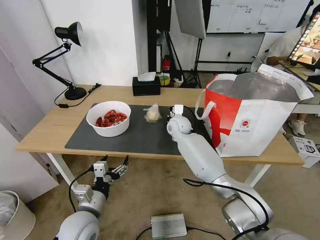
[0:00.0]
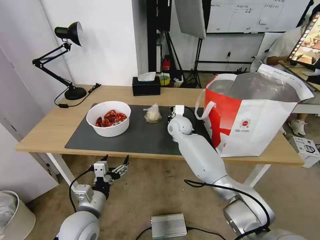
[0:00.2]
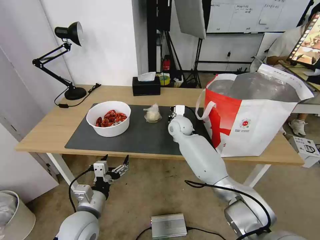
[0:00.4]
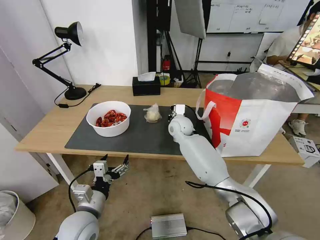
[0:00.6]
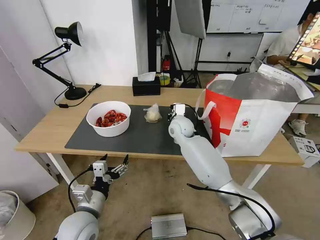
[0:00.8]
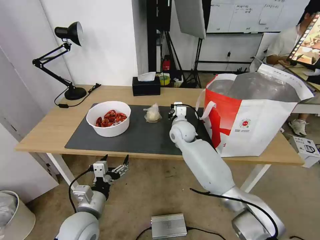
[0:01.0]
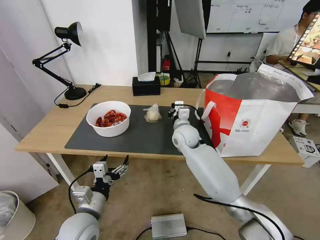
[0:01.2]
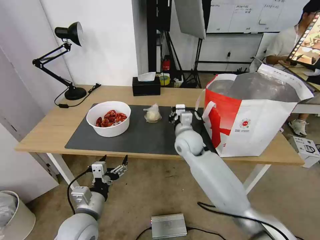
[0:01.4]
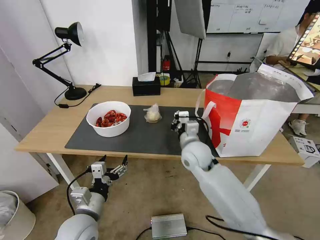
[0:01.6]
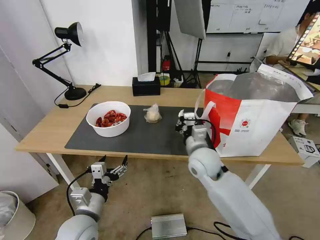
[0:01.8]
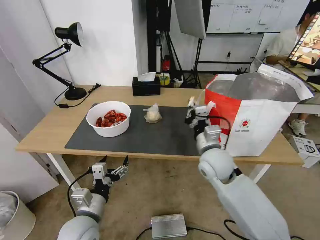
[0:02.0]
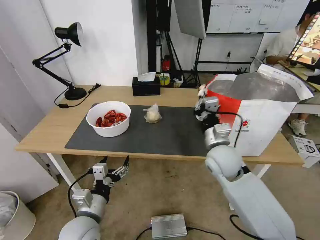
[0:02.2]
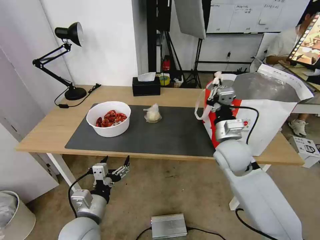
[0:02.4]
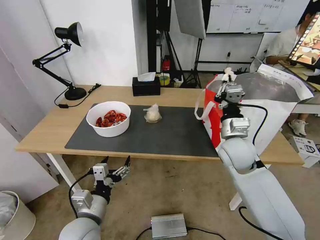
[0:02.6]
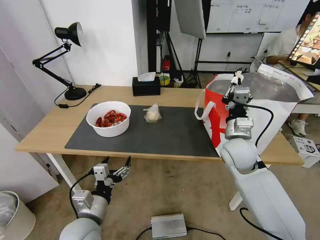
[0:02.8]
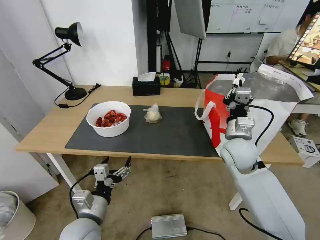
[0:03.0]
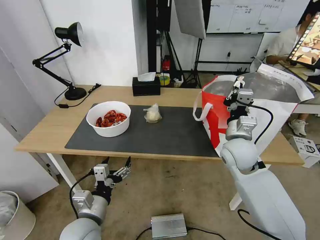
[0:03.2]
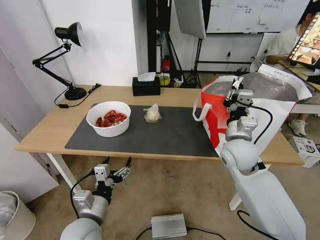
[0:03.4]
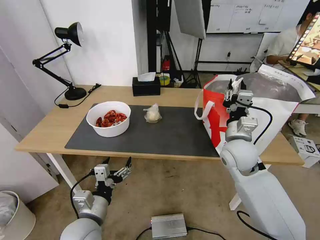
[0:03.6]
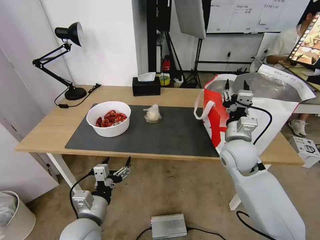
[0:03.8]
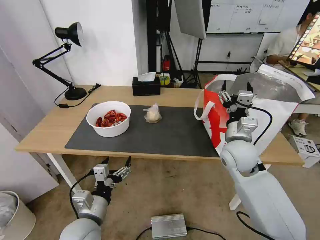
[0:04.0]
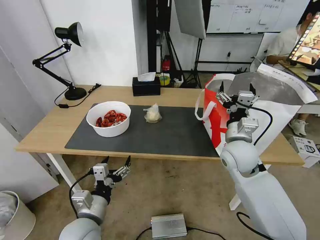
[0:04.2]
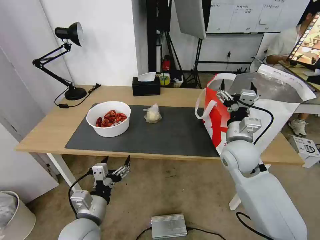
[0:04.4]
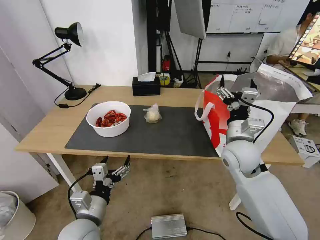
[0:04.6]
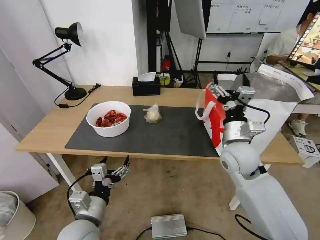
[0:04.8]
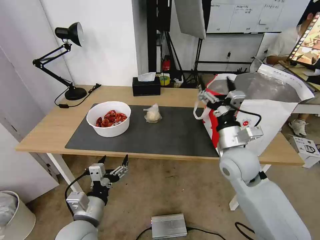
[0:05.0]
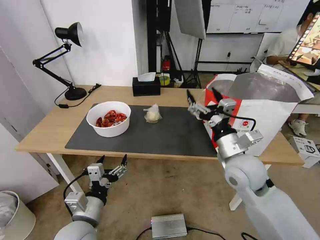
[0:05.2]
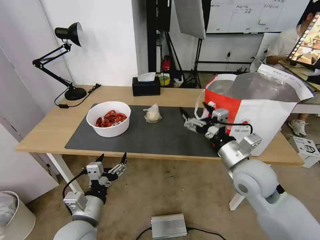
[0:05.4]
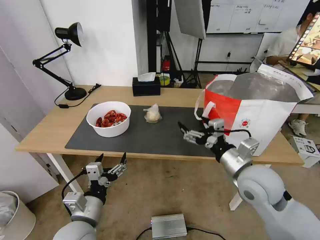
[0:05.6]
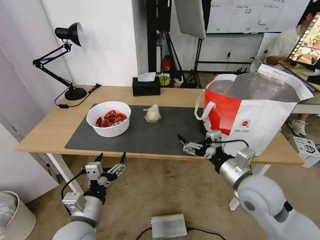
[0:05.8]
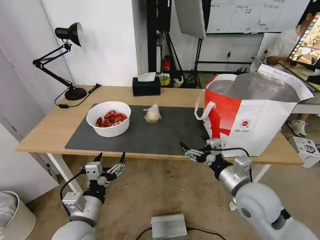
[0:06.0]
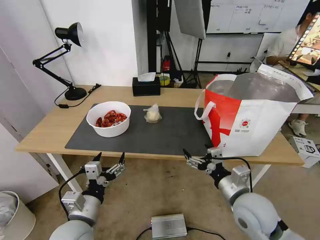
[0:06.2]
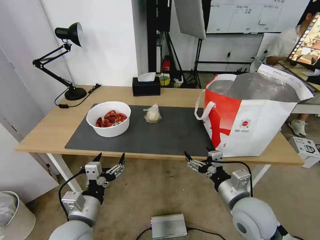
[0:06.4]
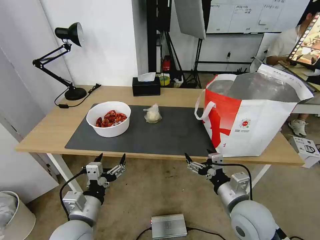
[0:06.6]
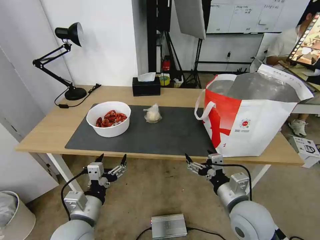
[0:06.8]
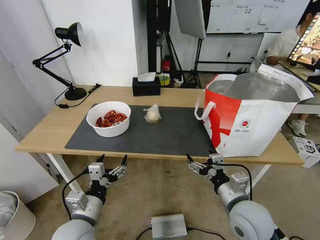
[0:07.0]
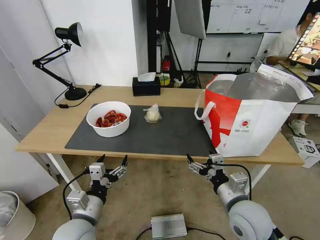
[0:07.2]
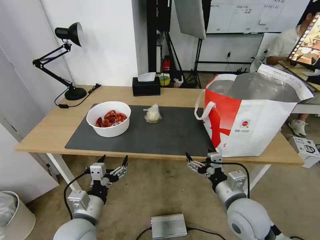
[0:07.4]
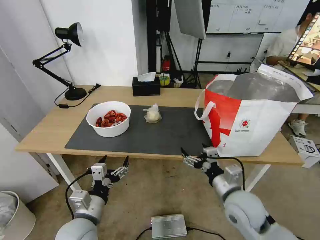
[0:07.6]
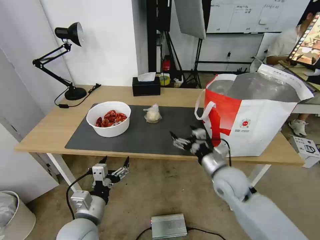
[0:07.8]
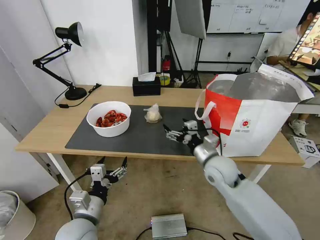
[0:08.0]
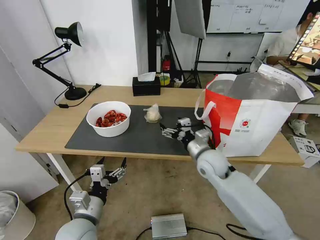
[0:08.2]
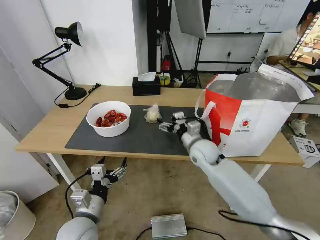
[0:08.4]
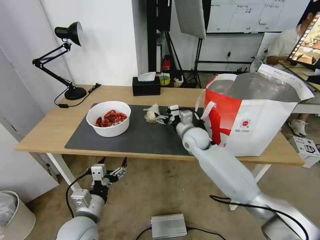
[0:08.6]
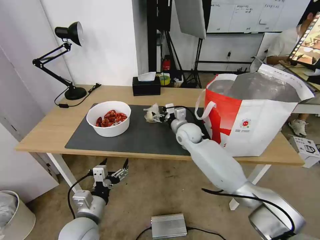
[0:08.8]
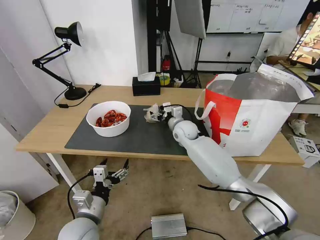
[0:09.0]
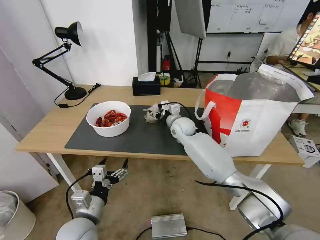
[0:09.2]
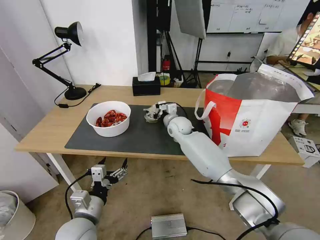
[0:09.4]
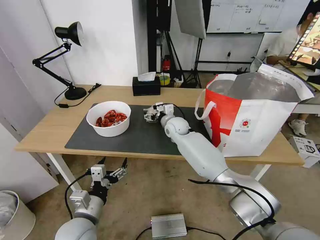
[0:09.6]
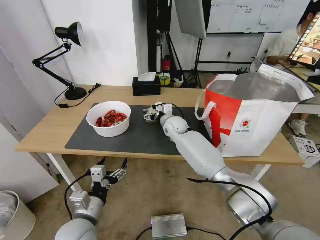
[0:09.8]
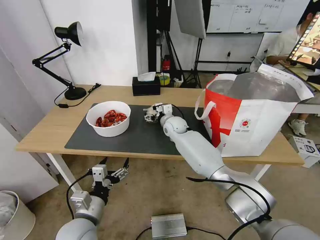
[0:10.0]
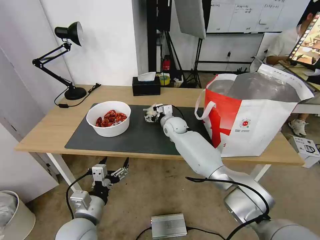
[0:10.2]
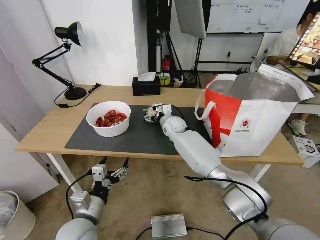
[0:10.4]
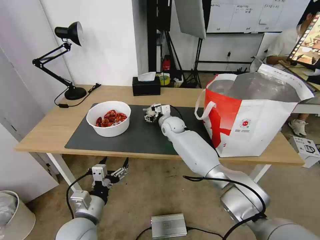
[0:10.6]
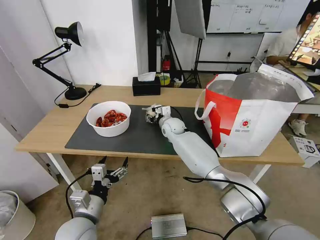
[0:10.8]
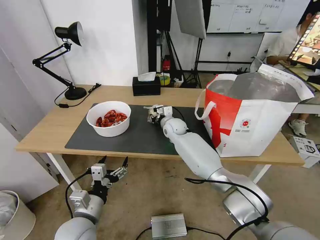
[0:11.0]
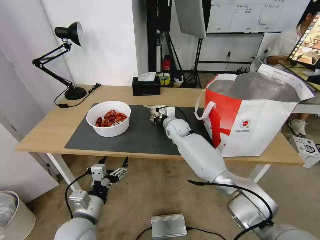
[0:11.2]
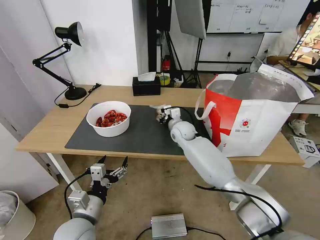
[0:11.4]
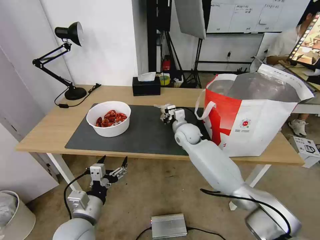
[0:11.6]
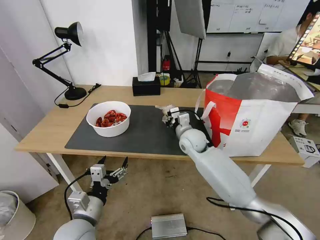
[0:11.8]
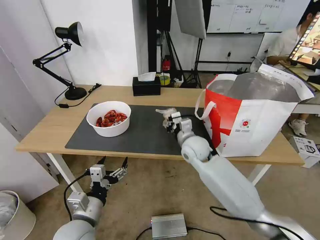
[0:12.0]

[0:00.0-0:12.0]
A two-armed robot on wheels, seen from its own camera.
Task of the whole recording: Pick up the trash from the table and place it into the takeout bag.
0:00.0 to 0:01.6: The right gripper shifts about 15 cm backward, and closes its fingers.
0:01.6 to 0:03.0: The right gripper is displaced to the right by some 10 cm.
0:03.0 to 0:04.4: The right gripper opens.
0:04.4 to 0:06.0: The right gripper travels backward by roughly 10 cm.
0:06.0 to 0:07.6: There are only small adjustments of the grippers.
0:07.6 to 0:09.0: The right gripper goes some 30 cm forward and to the left.
0:09.0 to 0:10.4: The right gripper changes place by about 5 cm.
0:10.4 to 0:12.0: The right gripper shifts roughly 15 cm backward, and closes up.

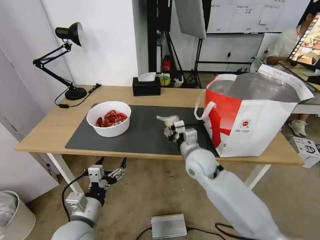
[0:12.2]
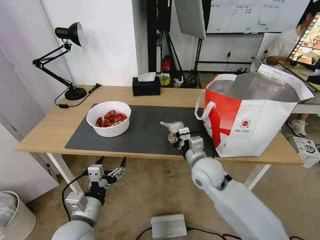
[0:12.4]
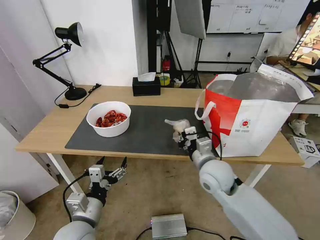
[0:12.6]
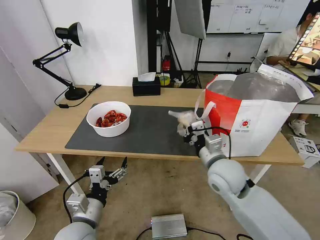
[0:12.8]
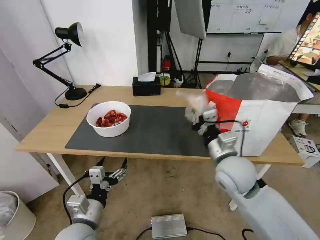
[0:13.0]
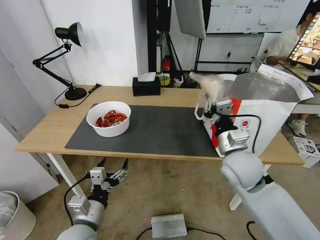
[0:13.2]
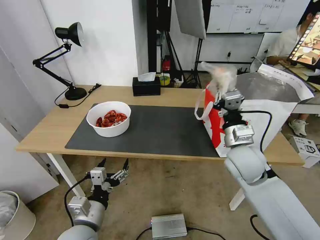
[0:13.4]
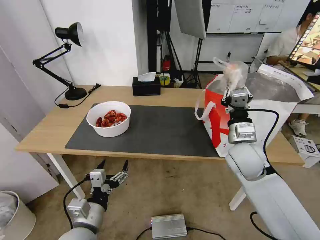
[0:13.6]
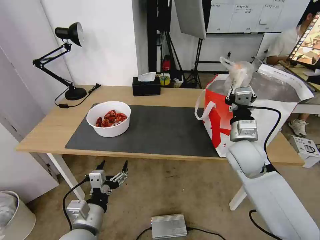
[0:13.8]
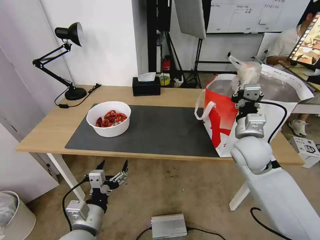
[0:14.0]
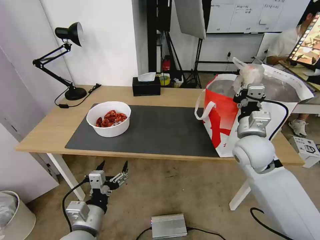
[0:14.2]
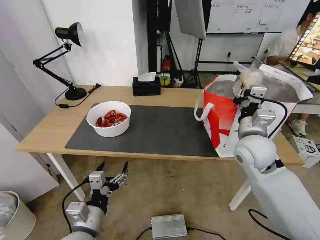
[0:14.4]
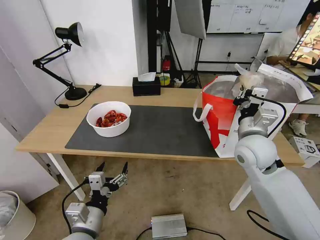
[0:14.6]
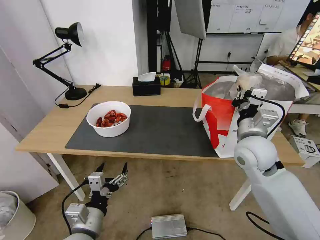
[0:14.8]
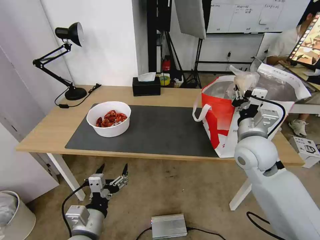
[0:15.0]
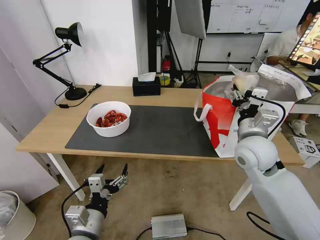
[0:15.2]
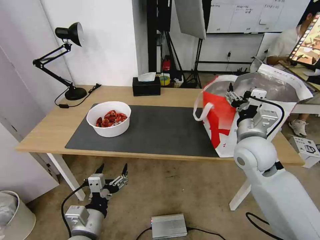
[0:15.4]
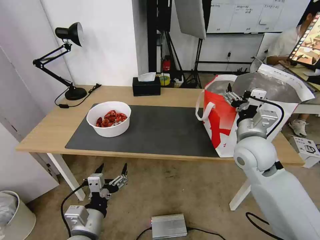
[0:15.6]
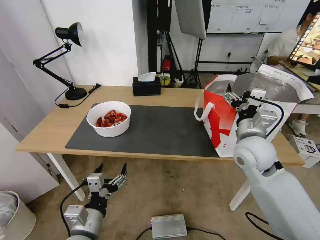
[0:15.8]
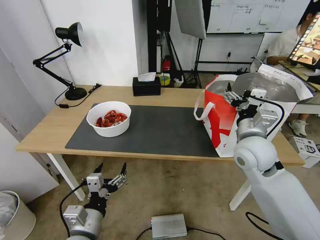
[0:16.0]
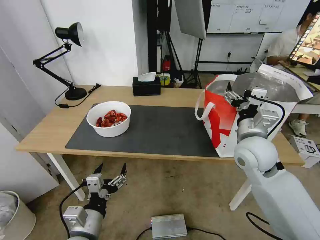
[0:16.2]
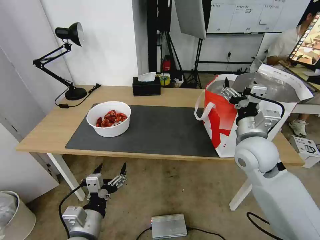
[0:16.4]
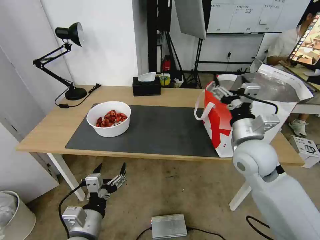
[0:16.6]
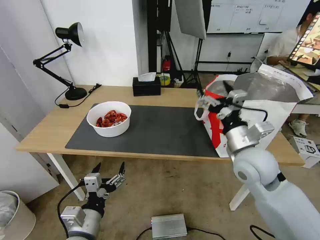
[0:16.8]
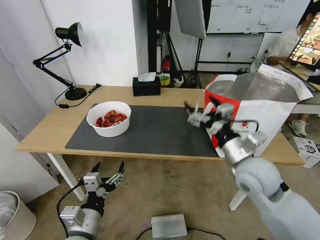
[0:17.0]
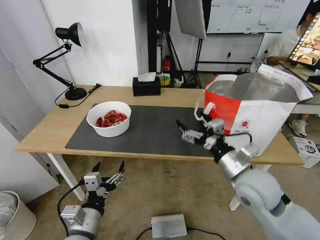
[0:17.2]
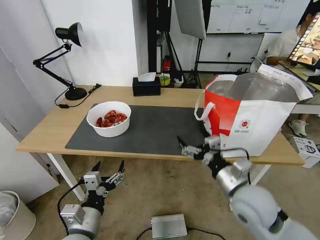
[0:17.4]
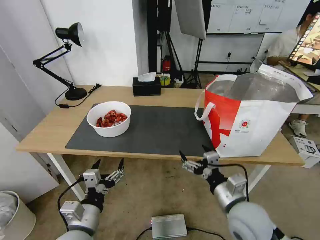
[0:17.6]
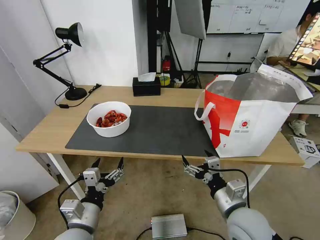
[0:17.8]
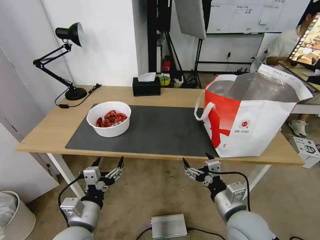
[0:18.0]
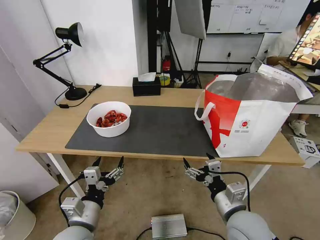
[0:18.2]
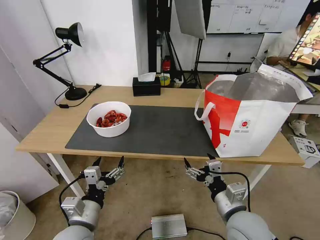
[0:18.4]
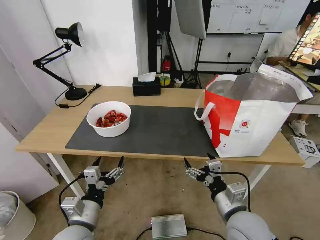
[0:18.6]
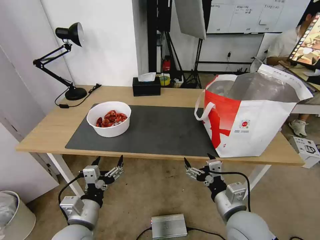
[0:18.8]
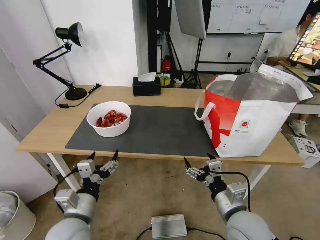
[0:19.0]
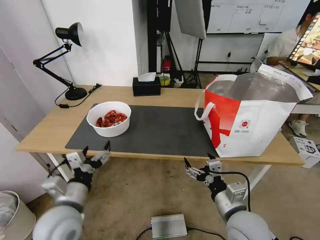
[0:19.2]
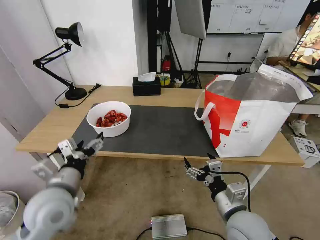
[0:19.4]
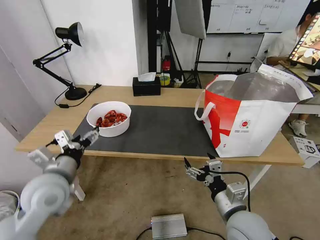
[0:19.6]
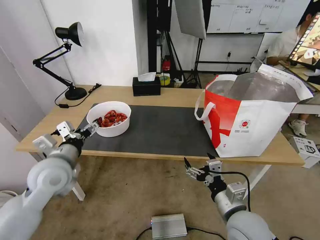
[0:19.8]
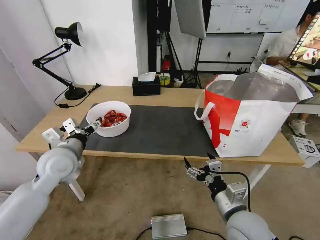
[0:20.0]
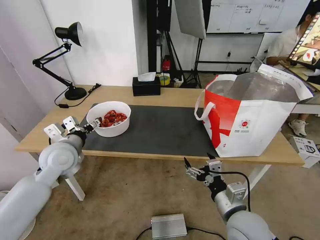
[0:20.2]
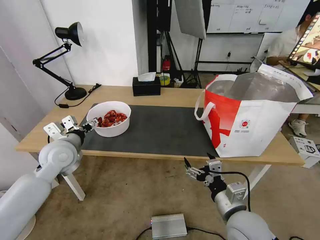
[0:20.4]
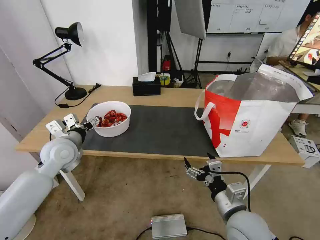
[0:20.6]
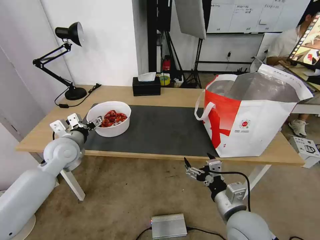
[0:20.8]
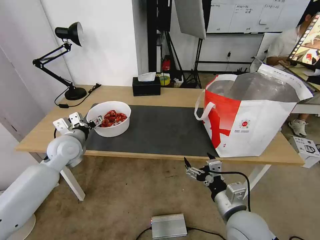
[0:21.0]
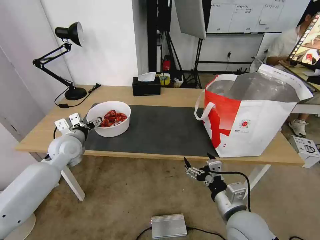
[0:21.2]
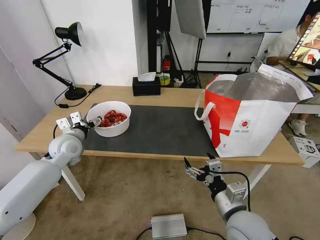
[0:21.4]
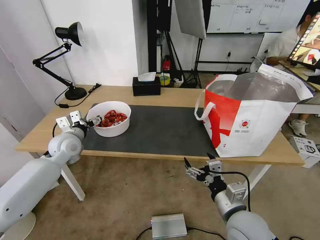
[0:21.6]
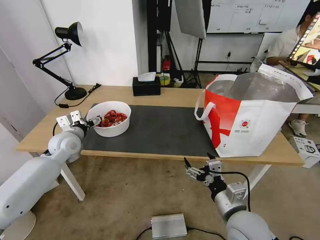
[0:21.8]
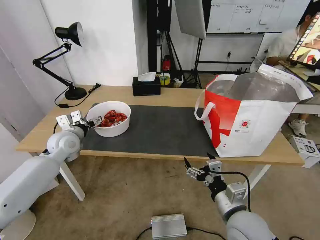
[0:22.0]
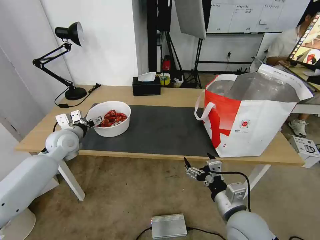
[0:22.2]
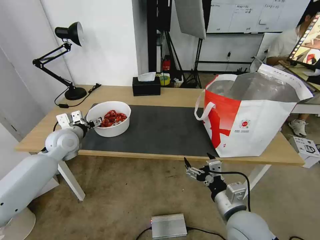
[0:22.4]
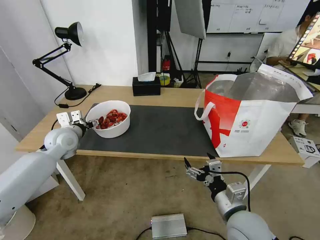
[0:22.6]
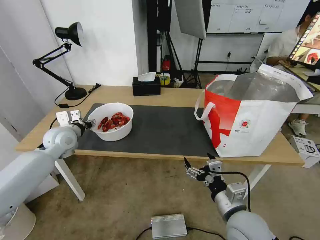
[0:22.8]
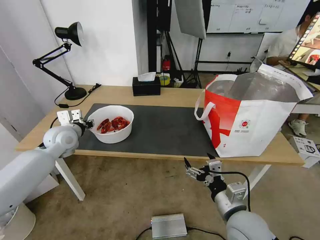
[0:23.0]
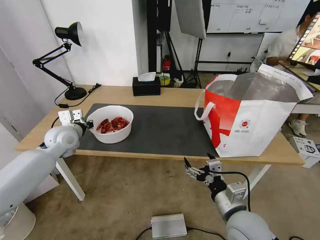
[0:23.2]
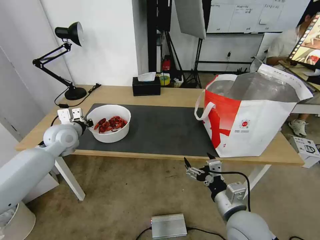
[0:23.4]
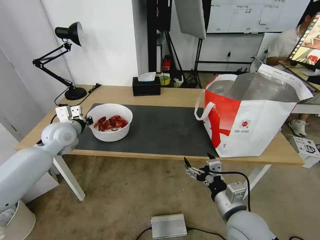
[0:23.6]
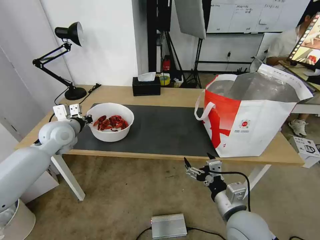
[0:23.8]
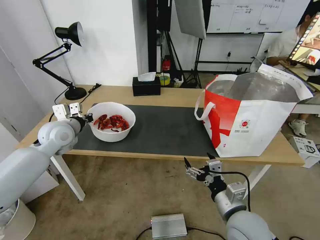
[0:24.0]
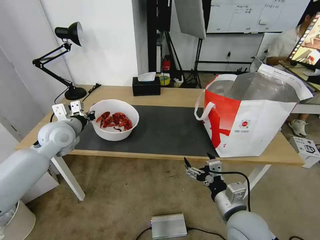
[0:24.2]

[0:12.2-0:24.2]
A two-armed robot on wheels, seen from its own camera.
Task of the whole recording: Pick up the trash from the table and place it into the takeout bag.
0:12.2 to 0:13.8: The right gripper moves to the right and upward, some 15 cm.
0:13.8 to 0:15.2: The right gripper opens its fingers.
0:16.6 to 0:18.2: The right gripper moves backward and downward, some 20 cm.
0:18.2 to 0:19.8: The left gripper heads forward, upward and to the left, covering roughly 20 cm.
0:19.8 to 0:21.2: The left gripper is displaced forward by about 10 cm.
0:21.2 to 0:22.6: The grippers make only small movements.
0:22.6 to 0:24.2: The left gripper shifts by roughly 5 cm, and closes.
